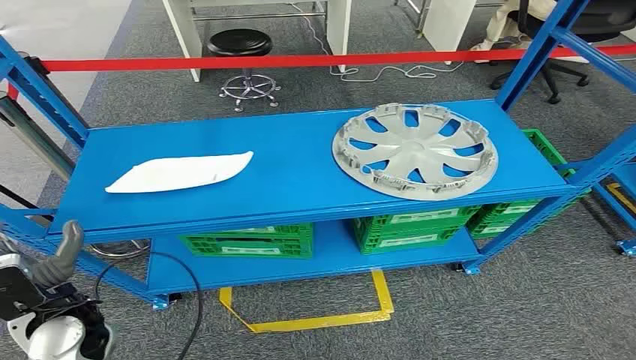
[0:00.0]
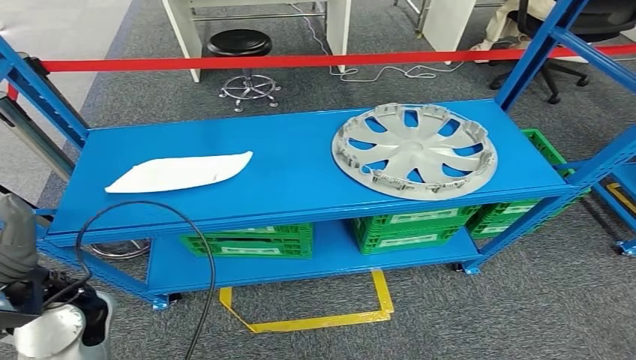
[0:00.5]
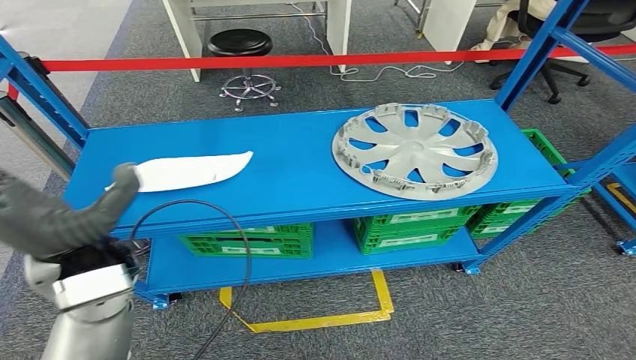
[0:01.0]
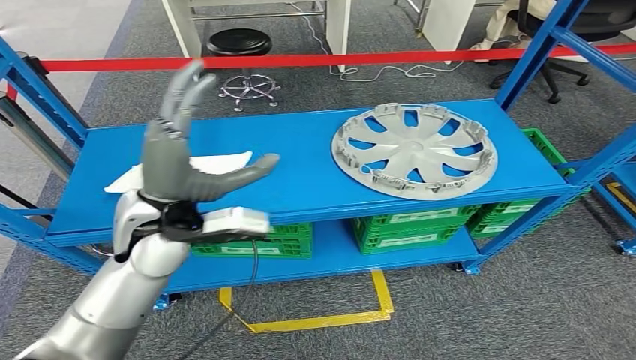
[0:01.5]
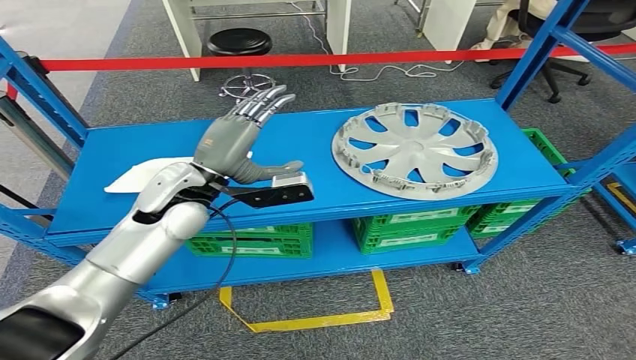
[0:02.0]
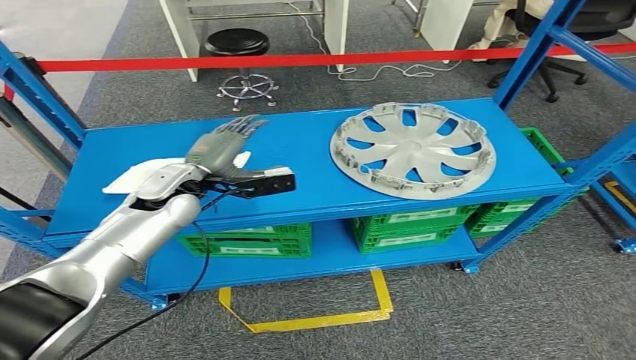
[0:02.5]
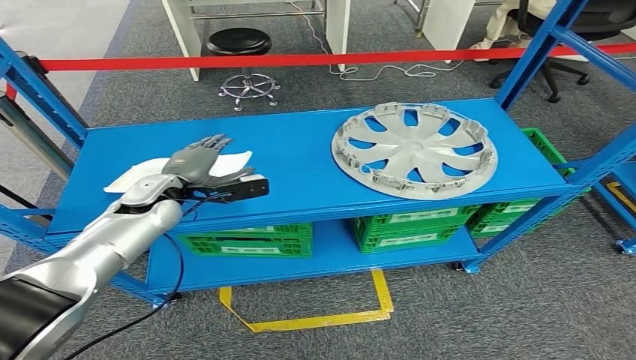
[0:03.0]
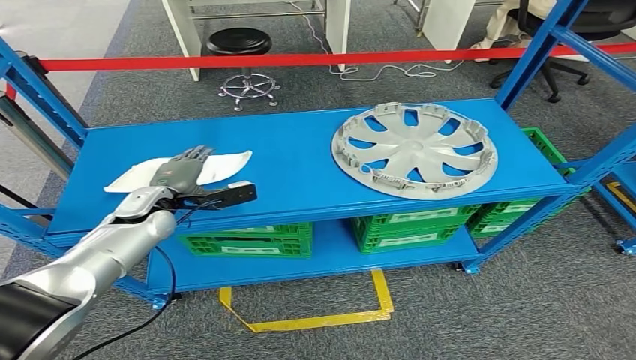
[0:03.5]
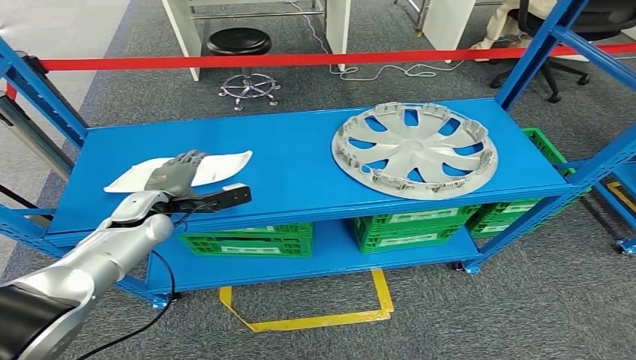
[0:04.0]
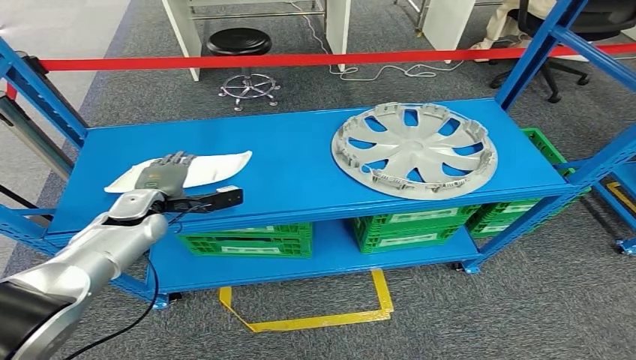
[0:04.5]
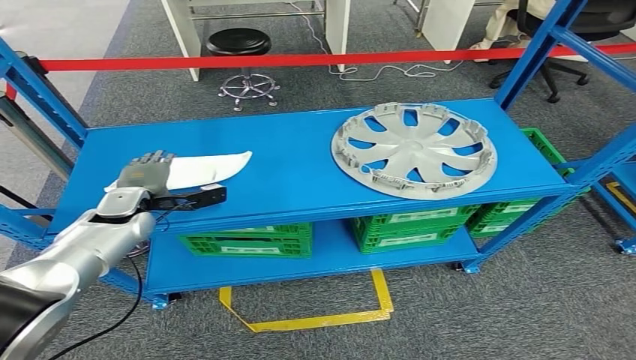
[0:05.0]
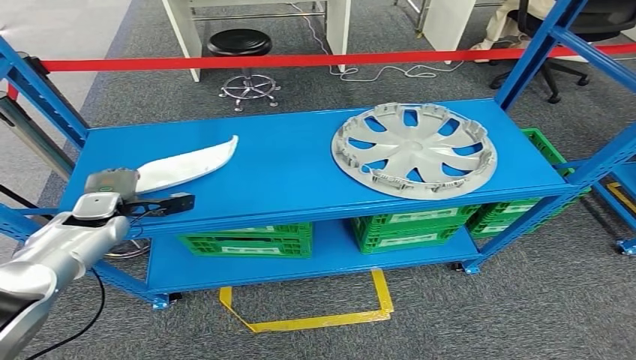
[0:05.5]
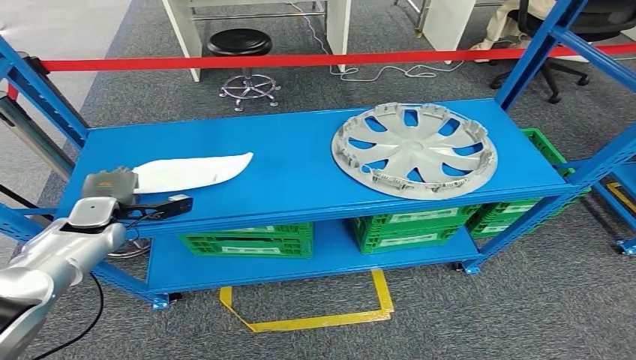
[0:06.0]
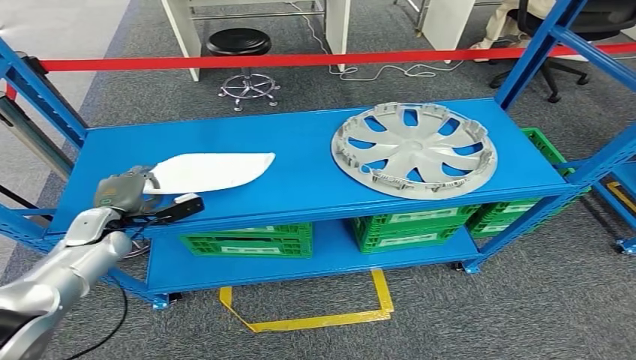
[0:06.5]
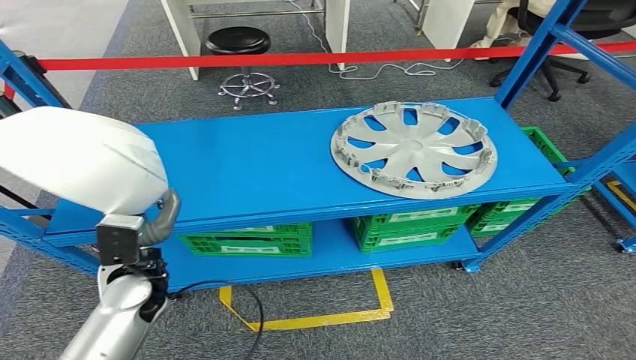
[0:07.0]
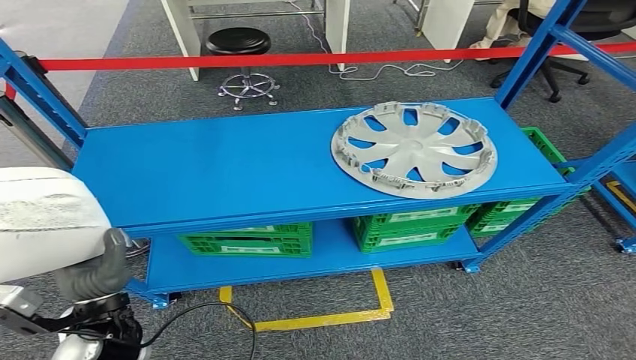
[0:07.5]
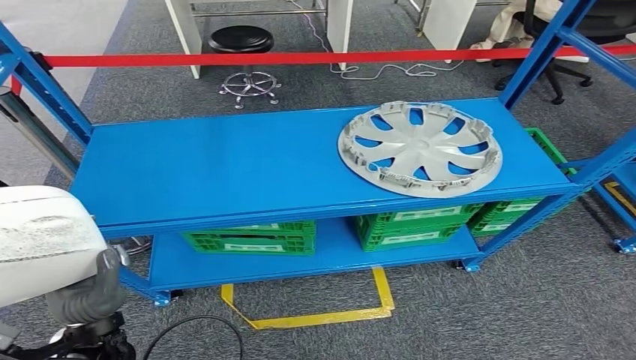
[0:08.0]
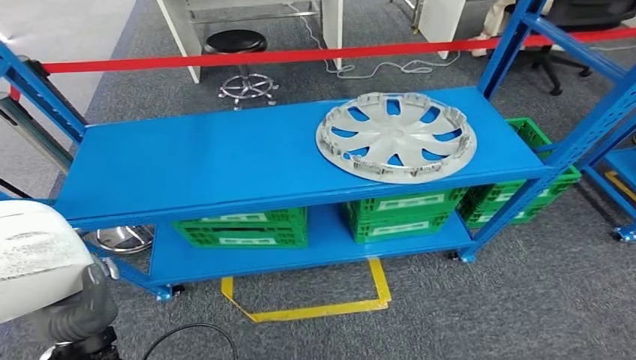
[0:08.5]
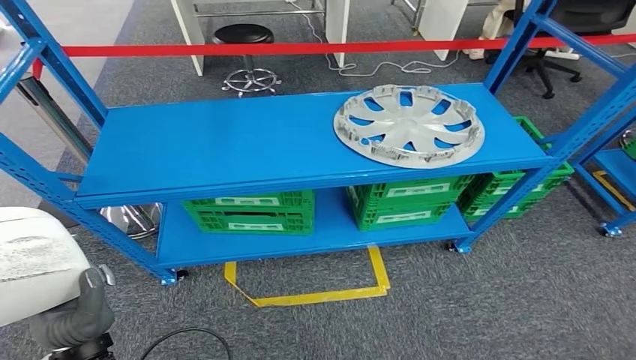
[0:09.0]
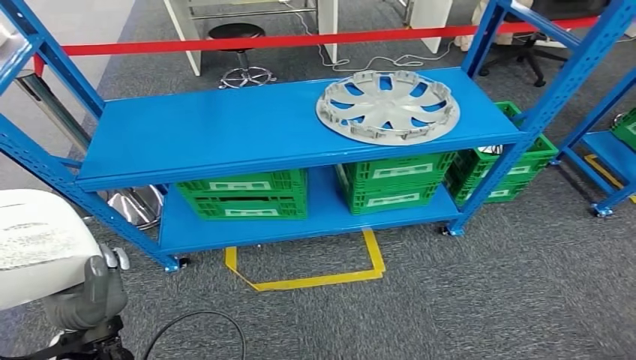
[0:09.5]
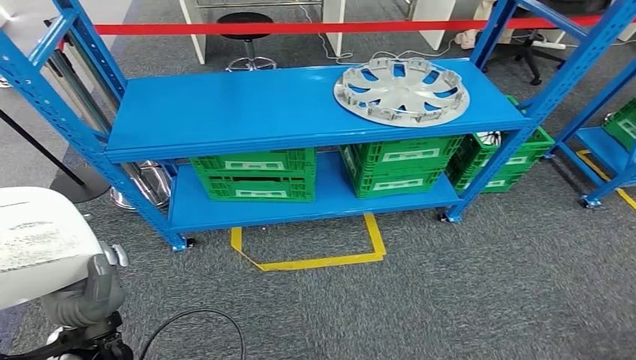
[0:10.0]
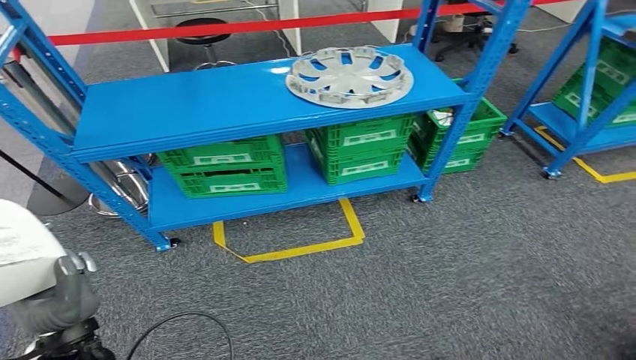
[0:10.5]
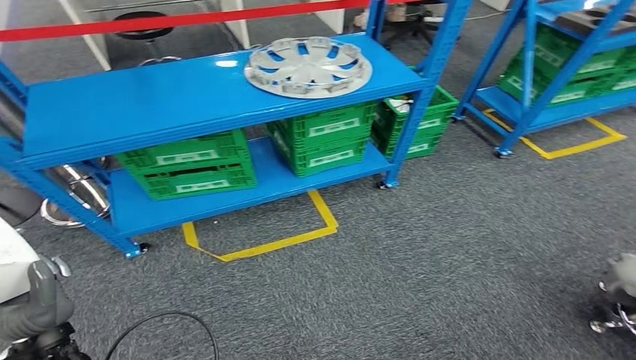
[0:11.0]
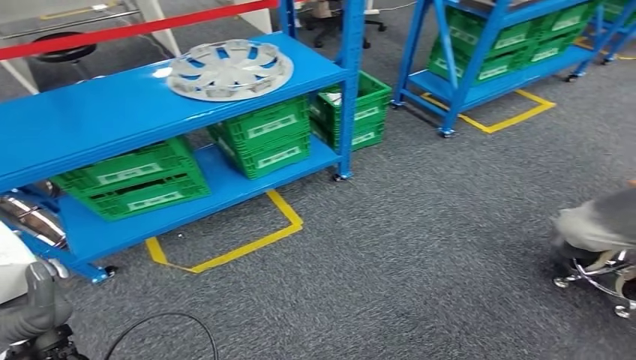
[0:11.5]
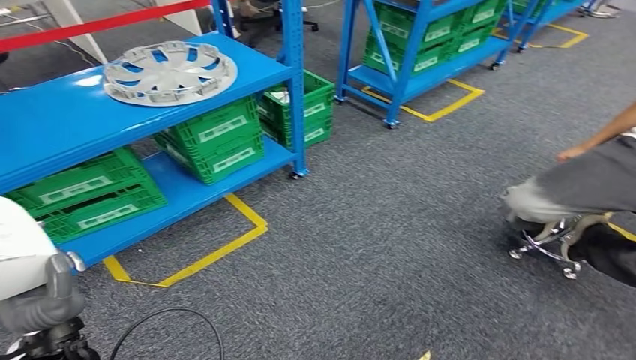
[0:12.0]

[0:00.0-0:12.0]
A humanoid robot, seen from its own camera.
Step, 0:00.0 to 0:07.0: Pick up the small component from the shelf.
0:02.0 to 0:04.0: The left hand moves downward and to the left, about 15 cm.
0:04.0 to 0:06.0: The left hand heads to the left, covering some 10 cm.

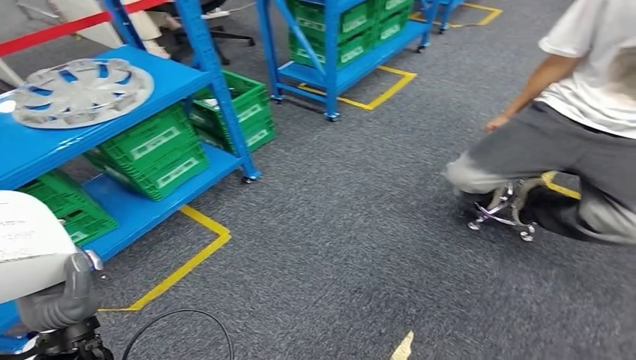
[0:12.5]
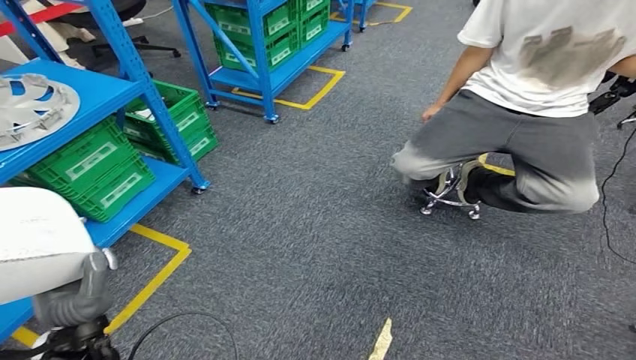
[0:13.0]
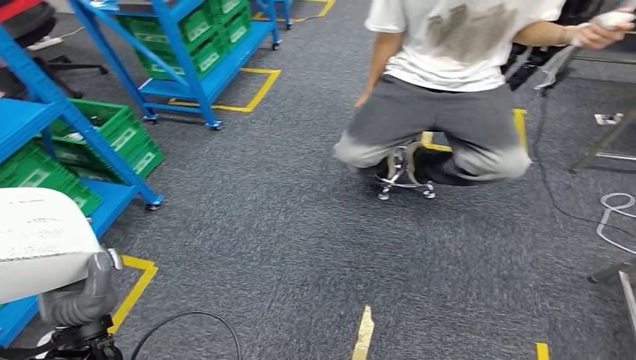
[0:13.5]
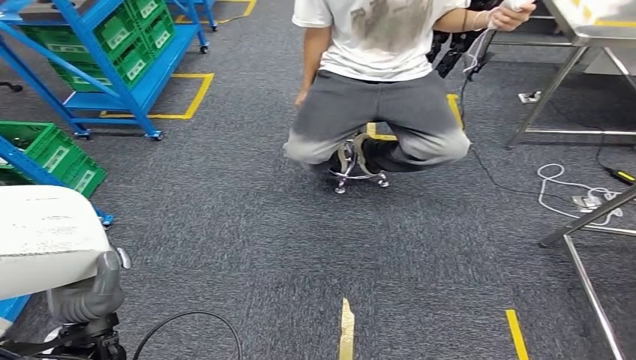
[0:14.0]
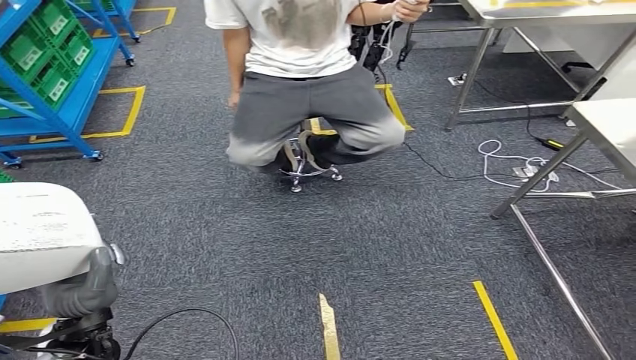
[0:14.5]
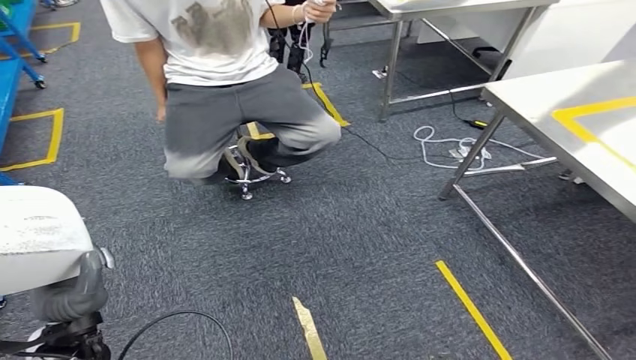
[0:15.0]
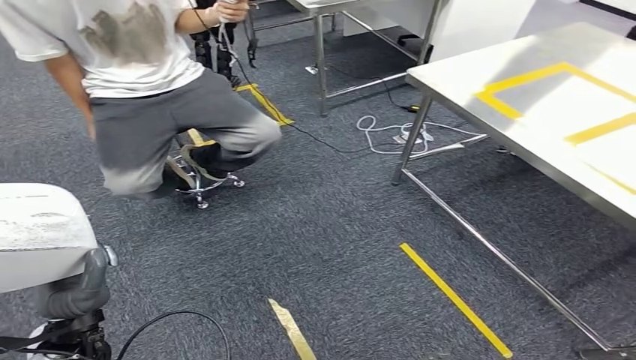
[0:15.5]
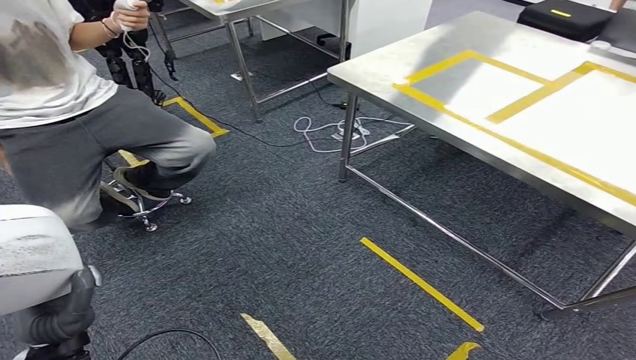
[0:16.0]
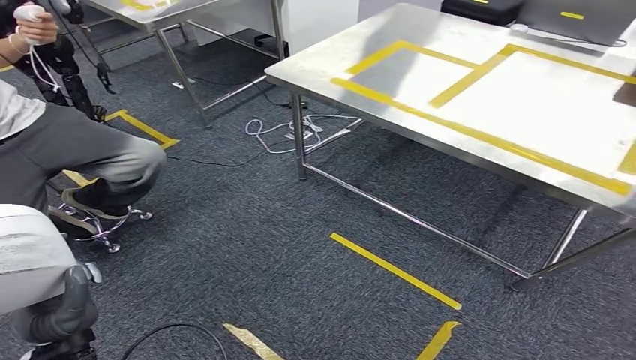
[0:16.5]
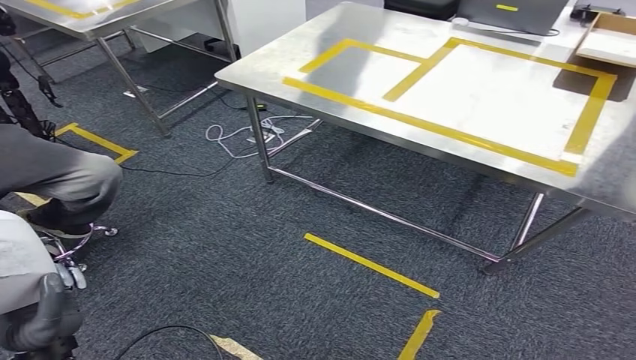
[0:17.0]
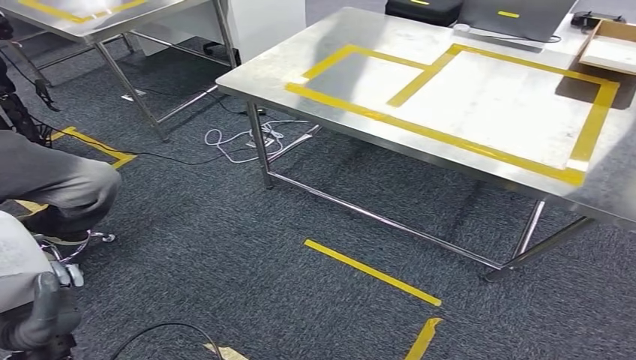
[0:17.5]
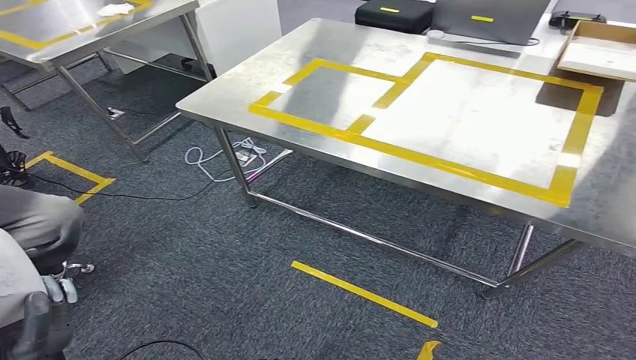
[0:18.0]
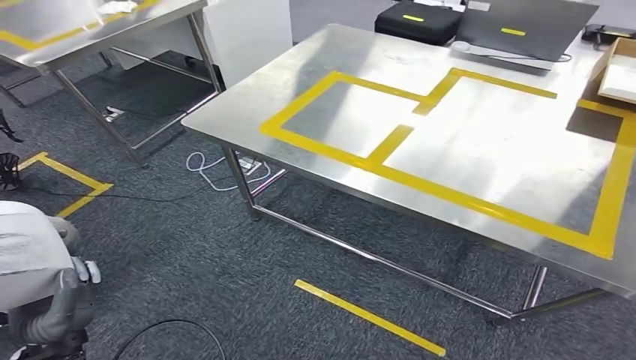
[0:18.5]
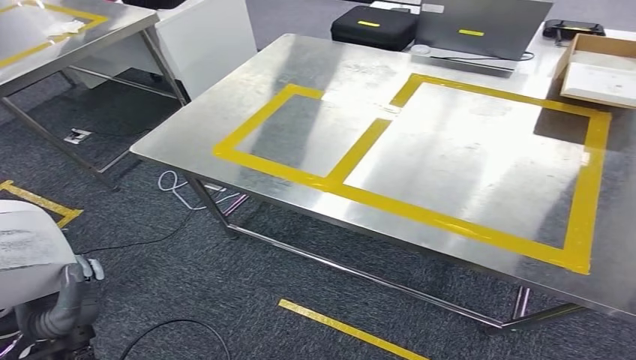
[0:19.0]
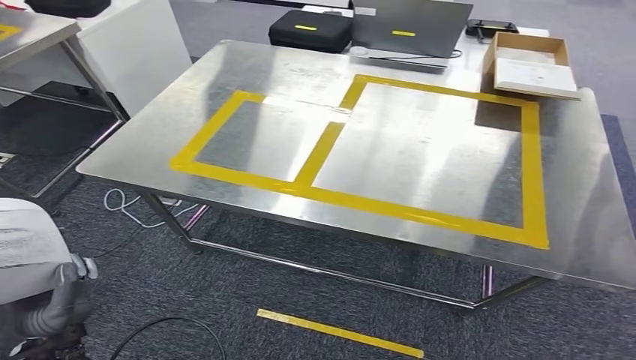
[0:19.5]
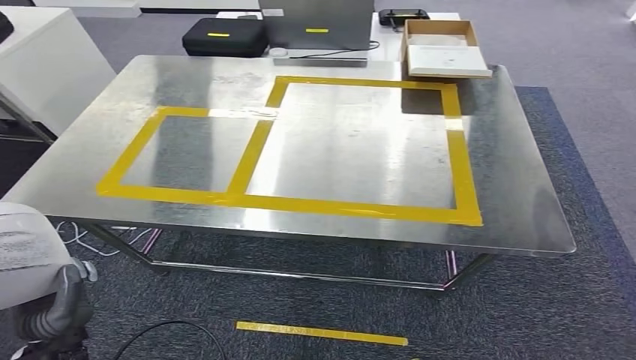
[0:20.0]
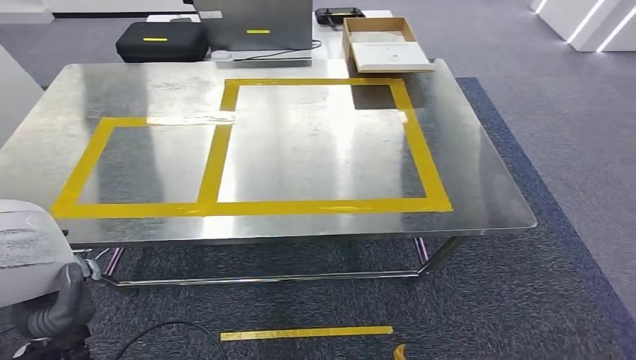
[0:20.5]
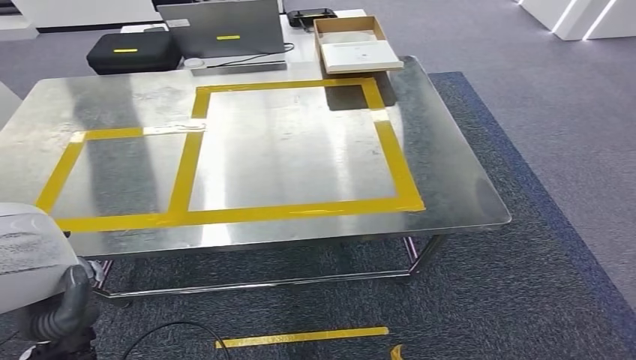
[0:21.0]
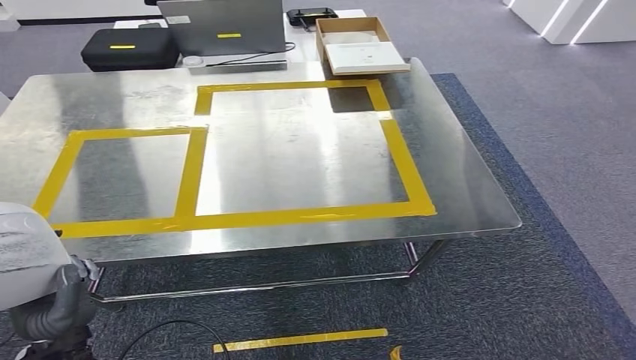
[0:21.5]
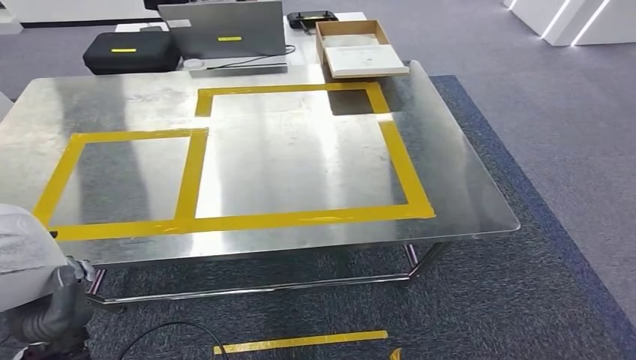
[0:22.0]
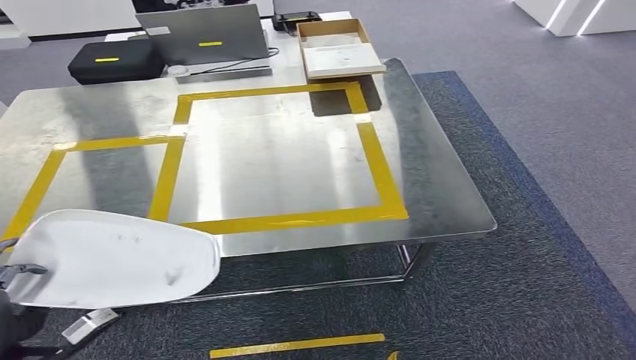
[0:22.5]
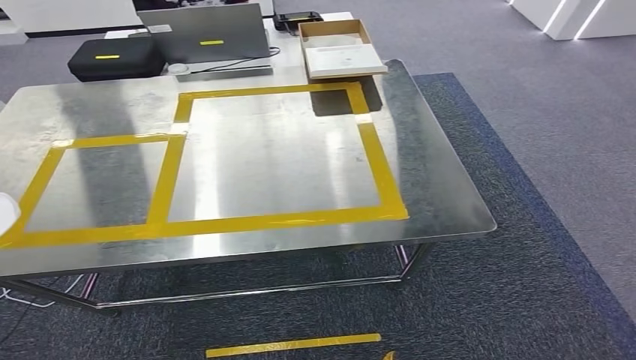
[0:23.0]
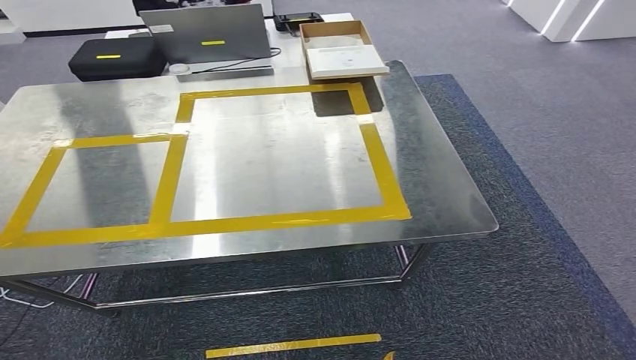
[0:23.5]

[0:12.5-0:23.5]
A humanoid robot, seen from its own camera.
Step, 0:12.5 to 0:21.5: Bring the small component to the front of the workbench.
